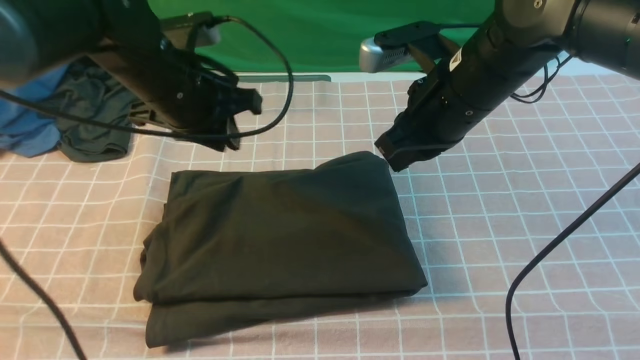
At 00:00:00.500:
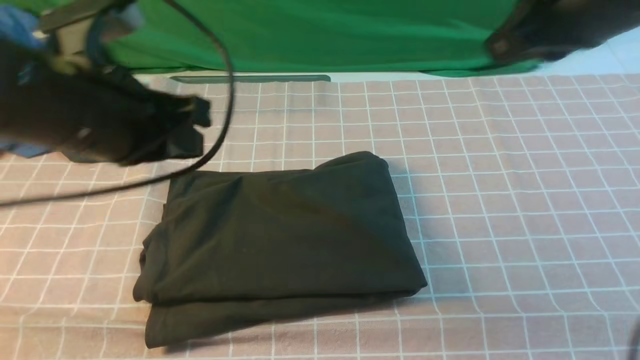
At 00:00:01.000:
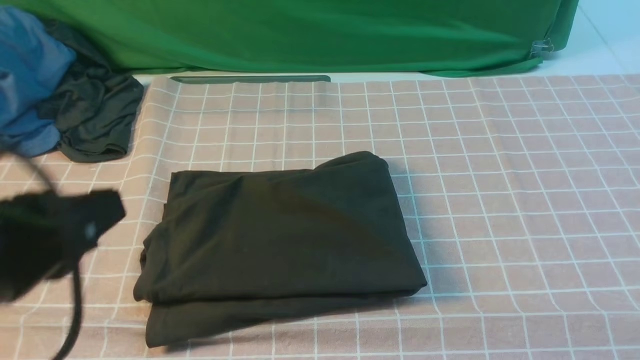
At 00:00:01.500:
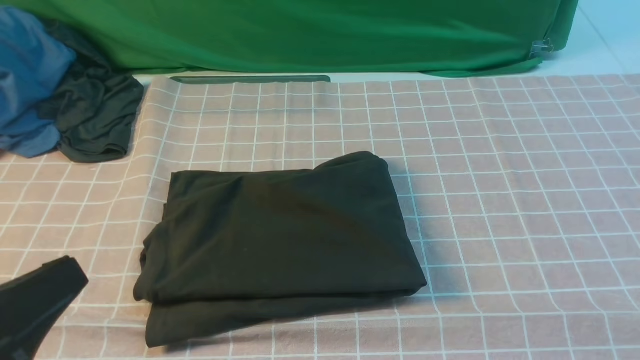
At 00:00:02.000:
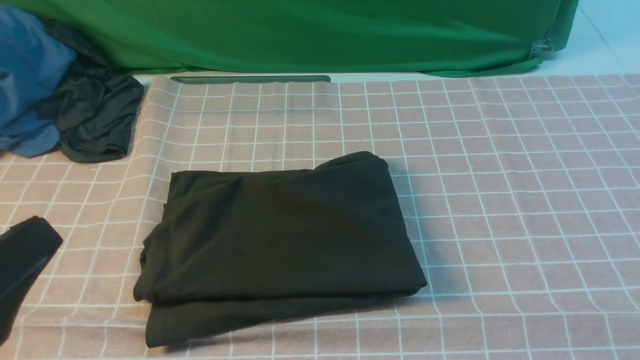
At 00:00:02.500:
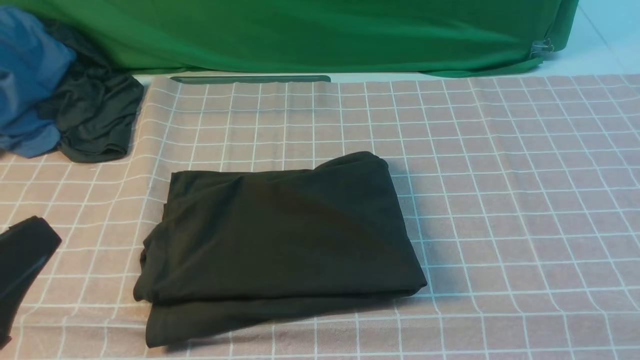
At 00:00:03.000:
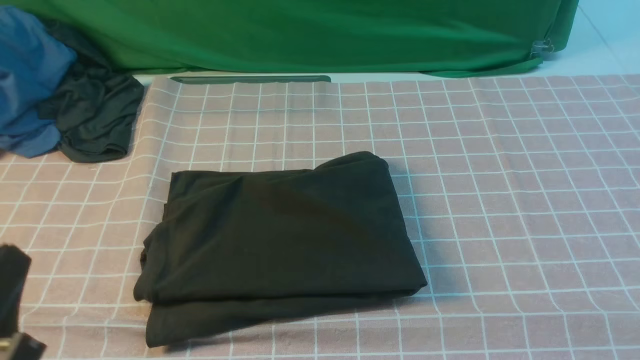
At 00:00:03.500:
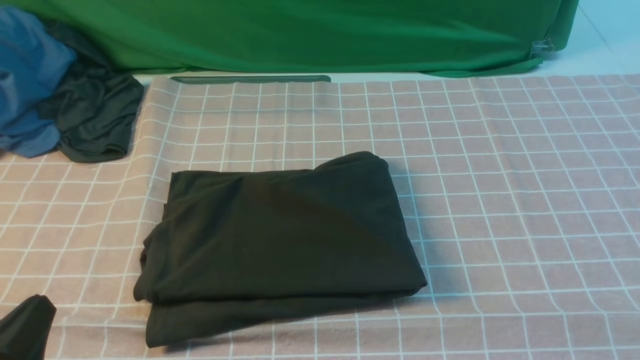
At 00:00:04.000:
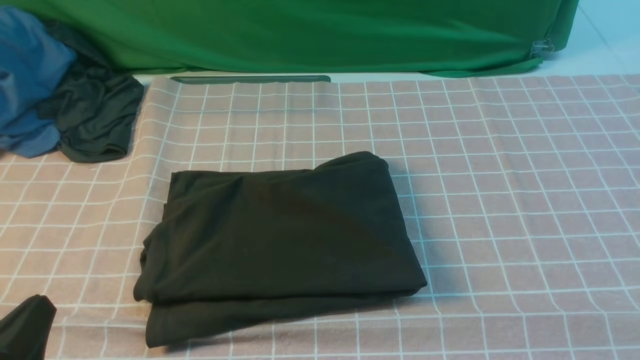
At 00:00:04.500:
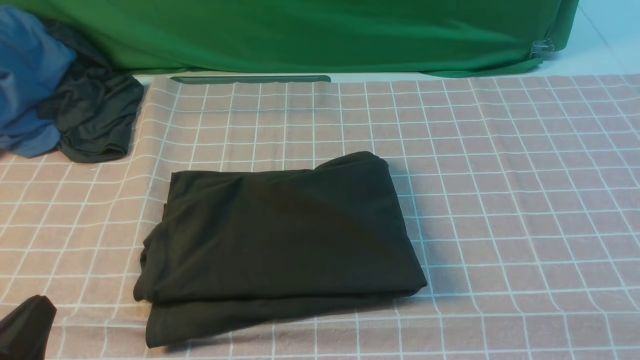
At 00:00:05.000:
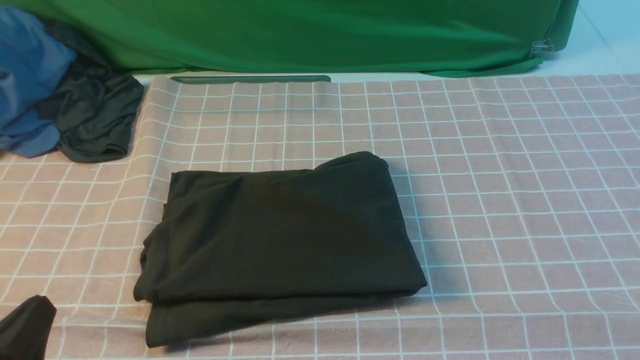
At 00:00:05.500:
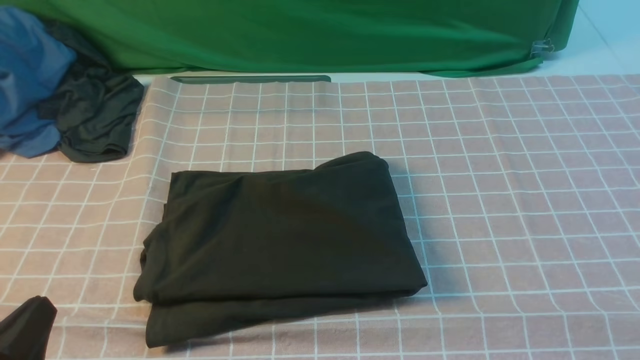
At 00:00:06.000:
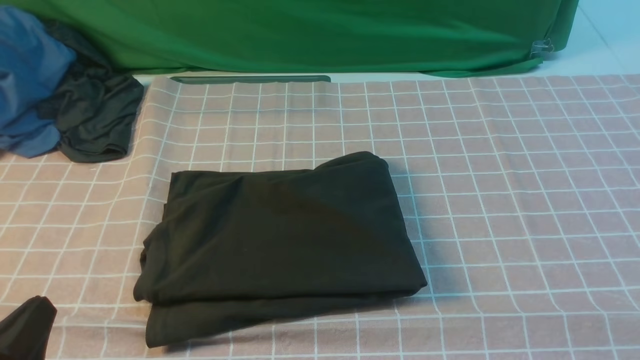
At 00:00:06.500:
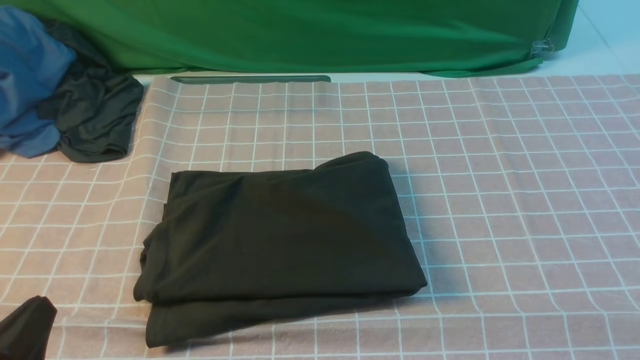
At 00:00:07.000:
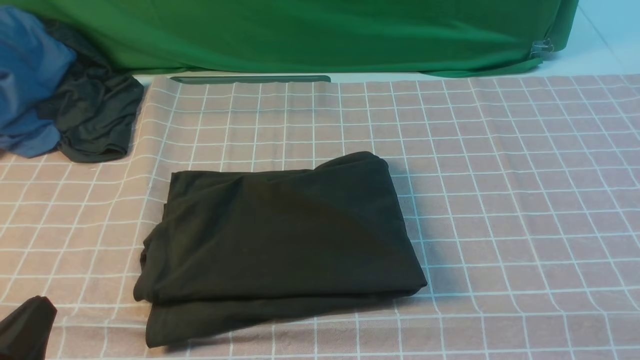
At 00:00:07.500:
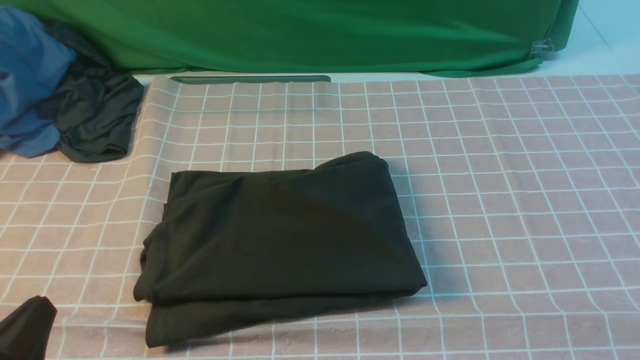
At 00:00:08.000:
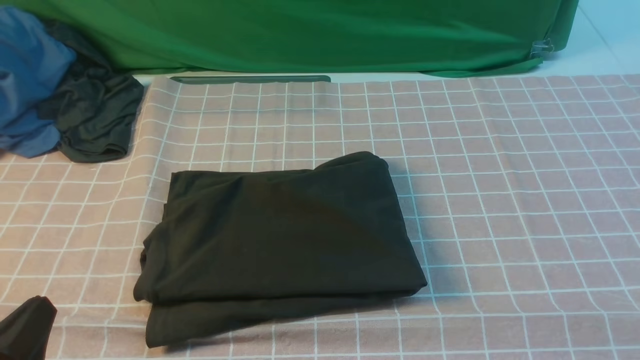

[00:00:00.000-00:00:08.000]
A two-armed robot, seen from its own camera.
00:00:00.000 to 00:00:02.000: The right gripper moves backward and to the right, roughly 40 cm, while the left gripper goes approximately 30 cm backward.
00:00:02.000 to 00:00:04.000: The left gripper goes approximately 10 cm downward.
00:00:06.000 to 00:00:08.000: The two grippers keep their place.

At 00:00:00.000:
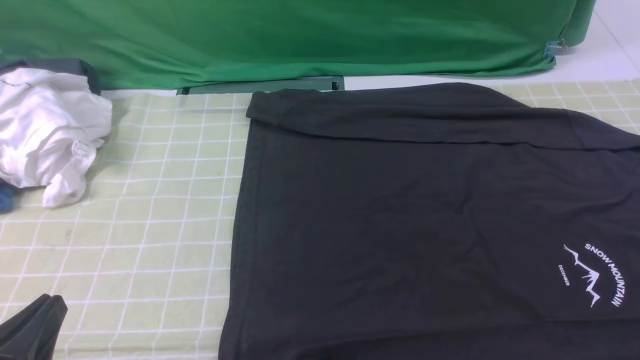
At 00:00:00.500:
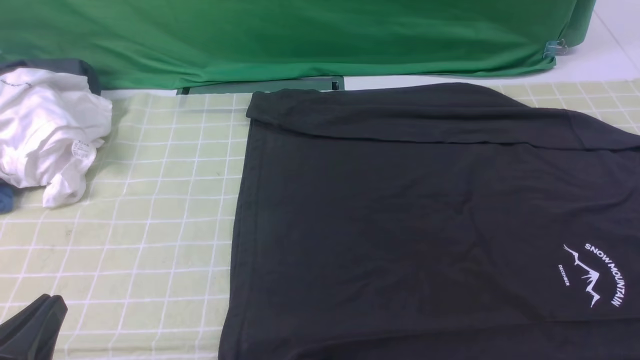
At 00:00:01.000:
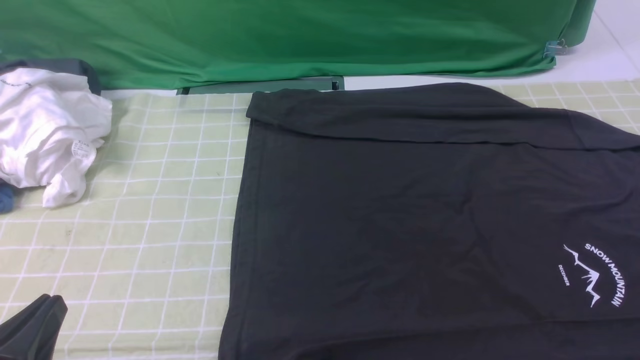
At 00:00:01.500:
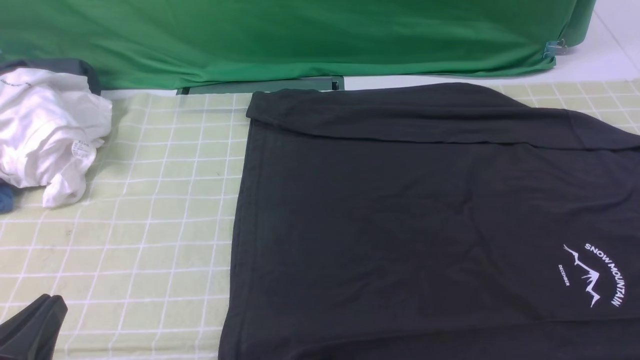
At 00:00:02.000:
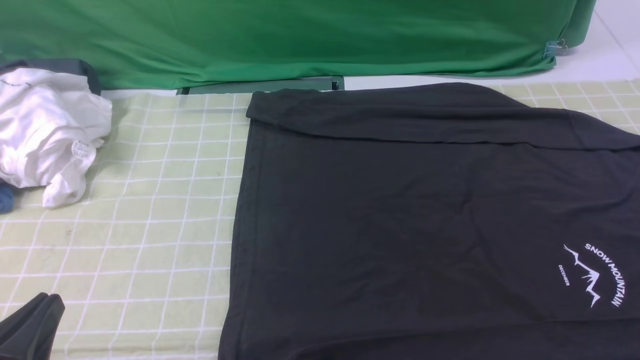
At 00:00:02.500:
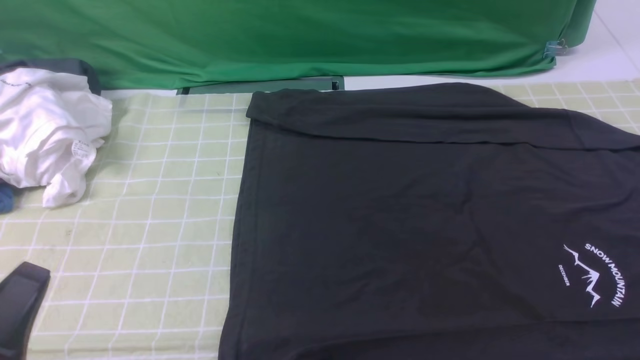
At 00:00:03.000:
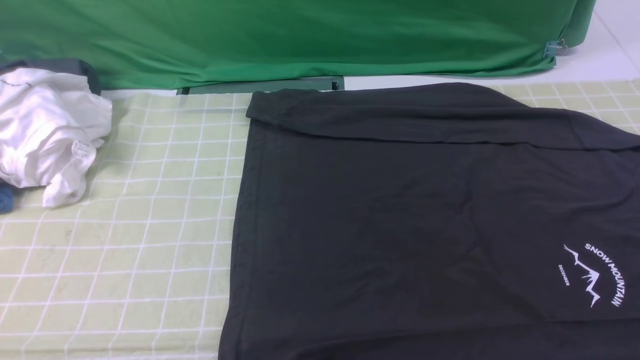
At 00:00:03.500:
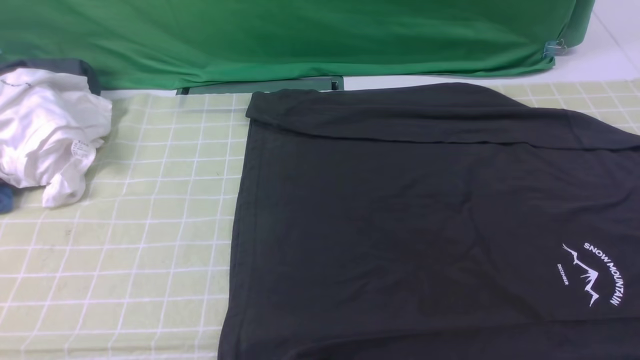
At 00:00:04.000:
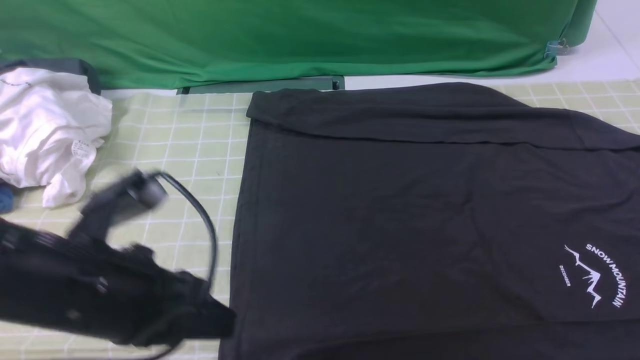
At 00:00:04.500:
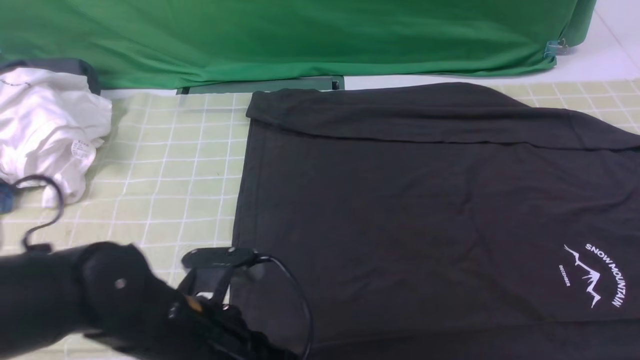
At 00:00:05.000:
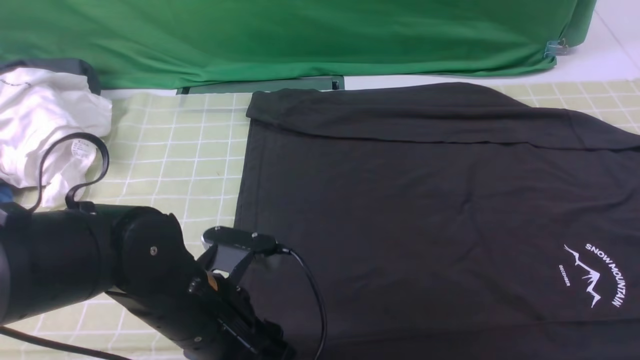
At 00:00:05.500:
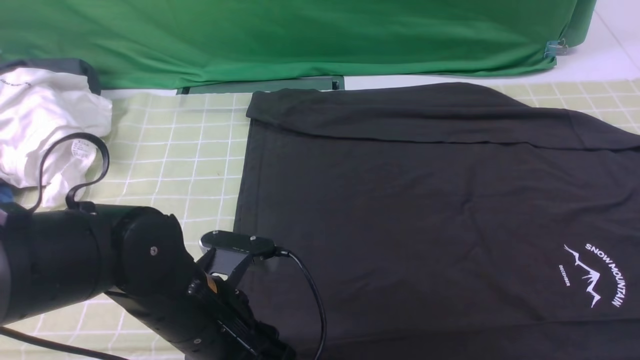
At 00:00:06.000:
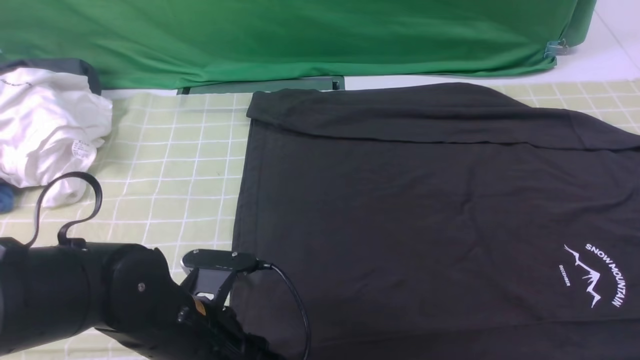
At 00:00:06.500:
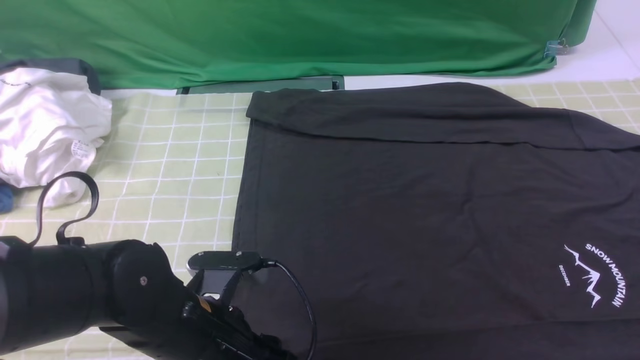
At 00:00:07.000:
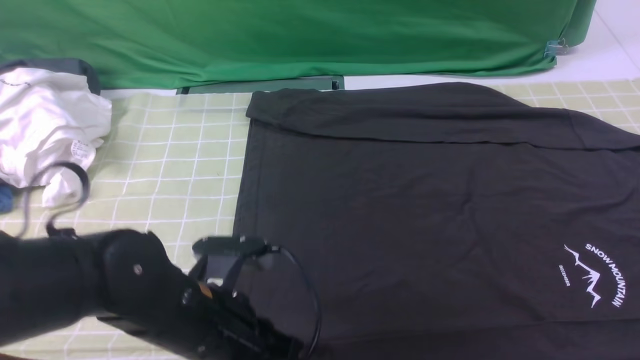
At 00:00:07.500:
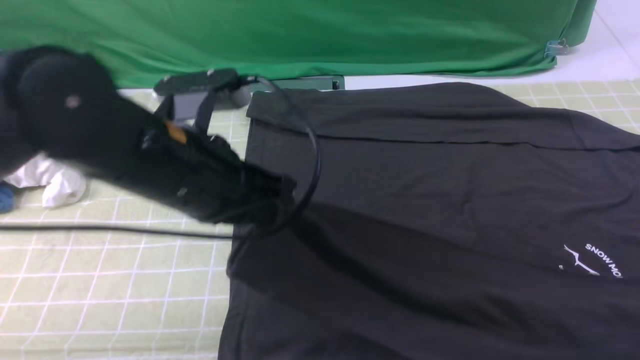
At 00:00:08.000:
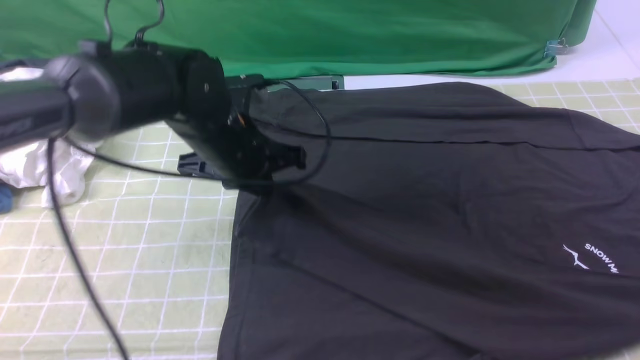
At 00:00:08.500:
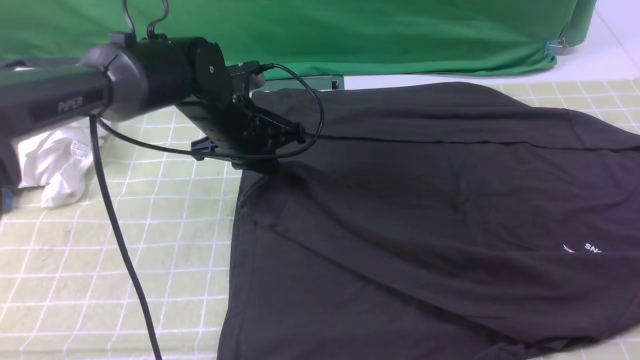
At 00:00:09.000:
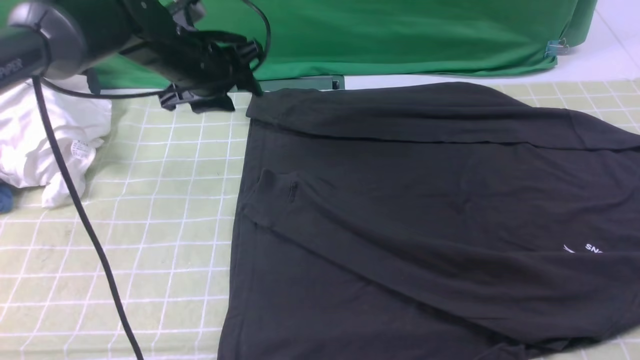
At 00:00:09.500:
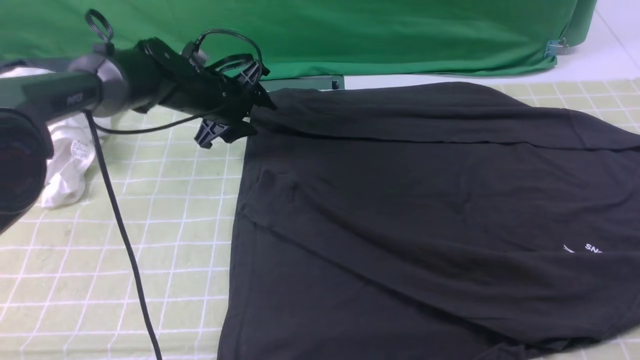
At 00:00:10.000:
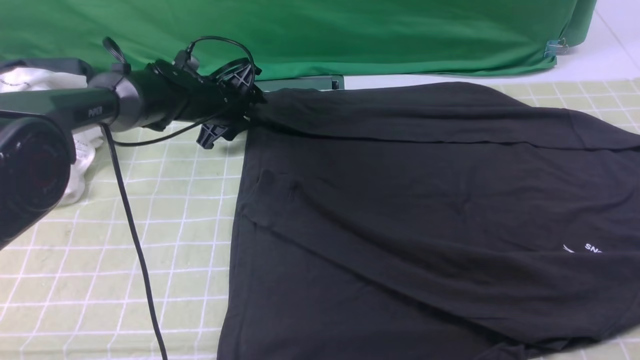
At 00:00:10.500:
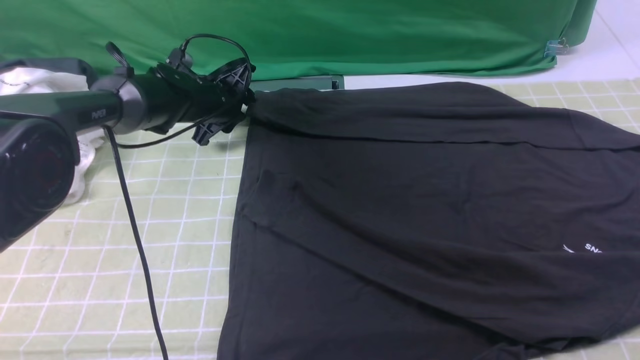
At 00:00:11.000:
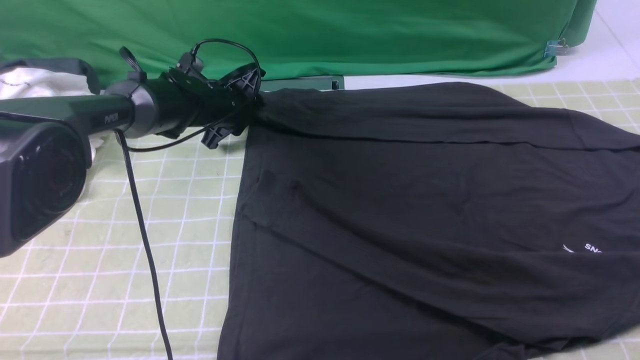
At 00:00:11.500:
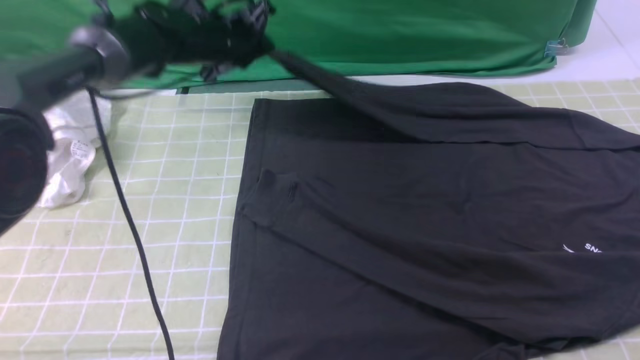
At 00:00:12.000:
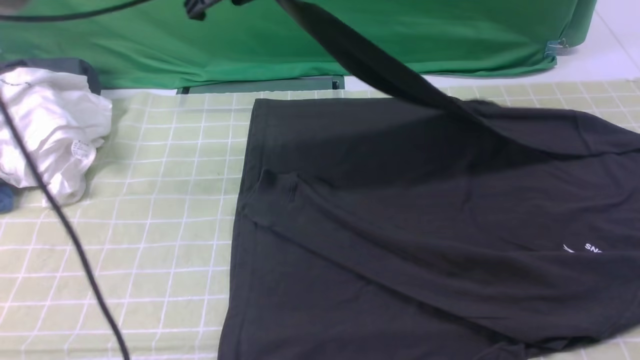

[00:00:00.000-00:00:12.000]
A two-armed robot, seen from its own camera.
Step, 00:00:00.000 to 00:00:06.500: use the left arm to clamp the cuff closest to it.
Step, 00:00:07.000 to 00:00:08.500: use the left arm to drag and place the cuff at the centered position on the left edge of the fabric.
Step, 00:00:09.000 to 00:00:11.000: use the left arm to clamp the cuff farthest from it.
00:00:02.000 to 00:00:04.000: The left gripper moves forward, to the right and upward, some 15 cm. Meanwhile the right gripper moves upward and forward, roughly 20 cm, and closes up.
00:00:04.000 to 00:00:06.000: The left gripper is displaced downward and to the right by roughly 10 cm, and opens.
00:00:06.000 to 00:00:08.000: The left gripper goes roughly 20 cm forward, and closes up.
00:00:08.000 to 00:00:10.000: The left gripper moves forward, downward and to the left, some 20 cm, and opens up.
00:00:10.000 to 00:00:12.000: The left gripper travels upward by about 20 cm, and closes up.
